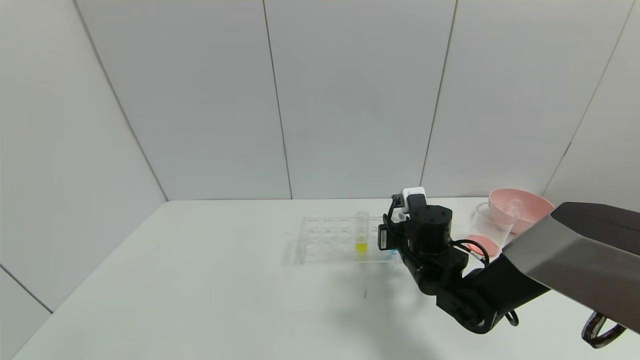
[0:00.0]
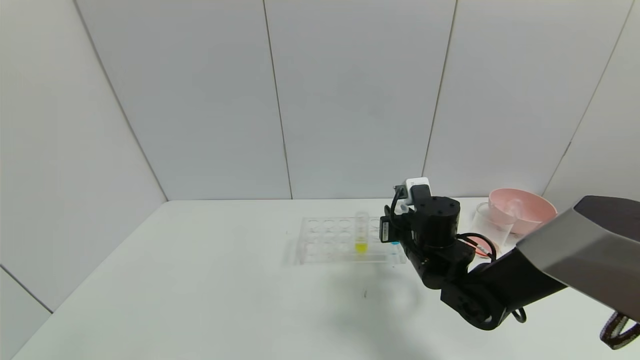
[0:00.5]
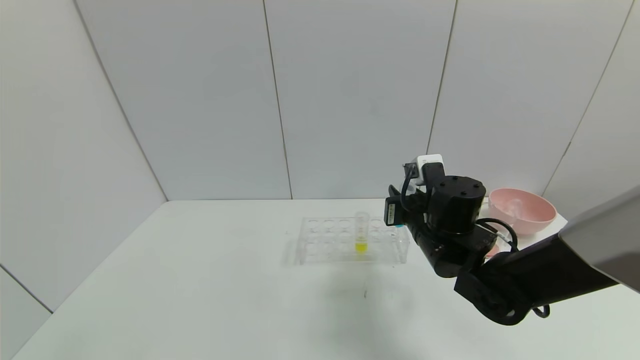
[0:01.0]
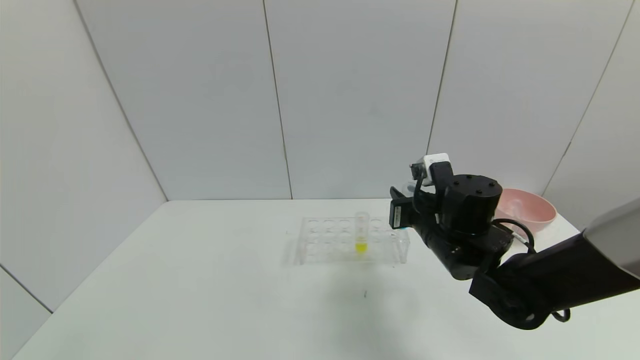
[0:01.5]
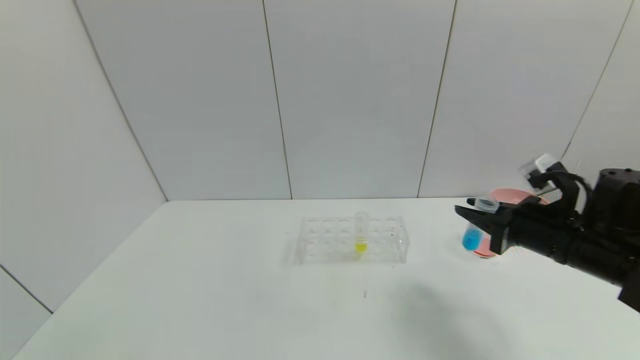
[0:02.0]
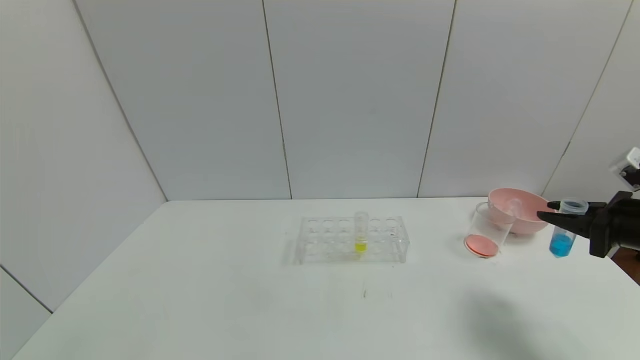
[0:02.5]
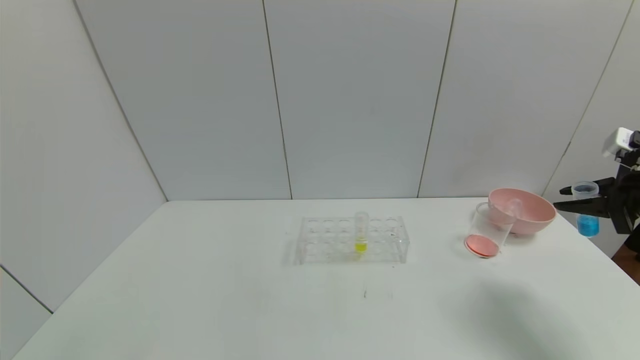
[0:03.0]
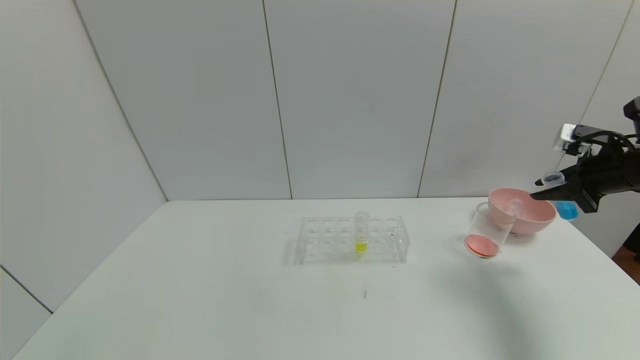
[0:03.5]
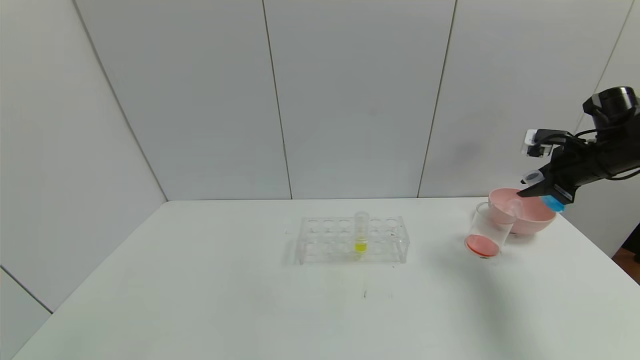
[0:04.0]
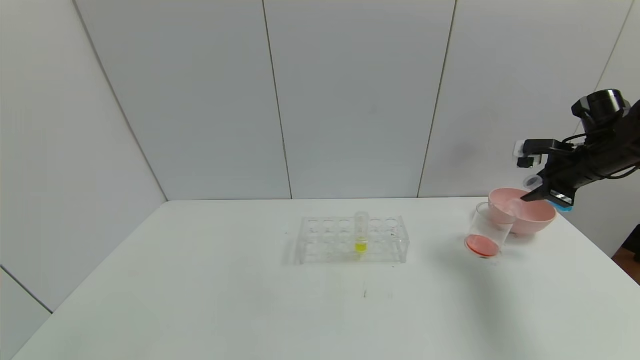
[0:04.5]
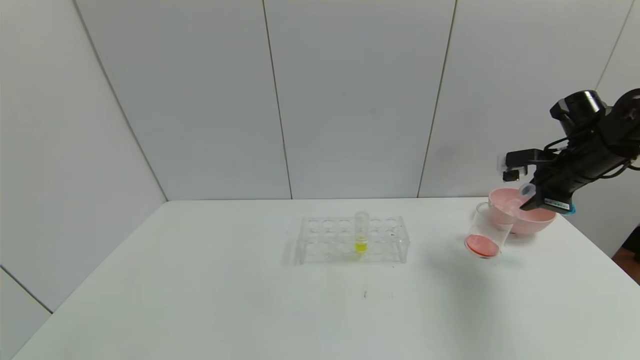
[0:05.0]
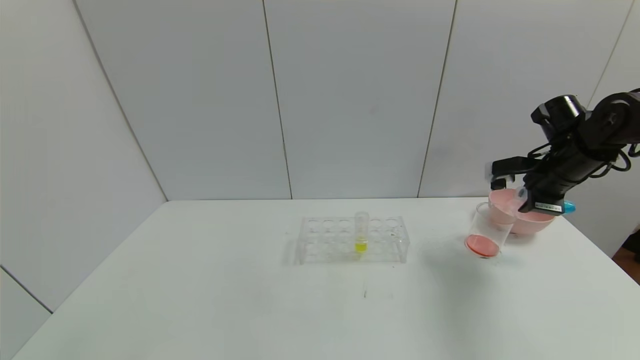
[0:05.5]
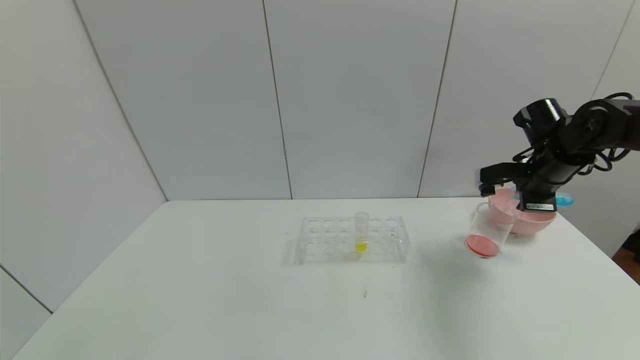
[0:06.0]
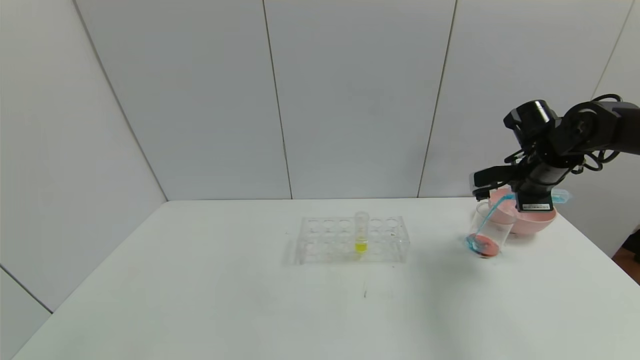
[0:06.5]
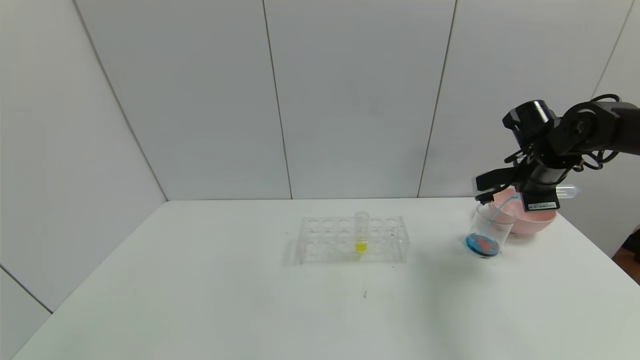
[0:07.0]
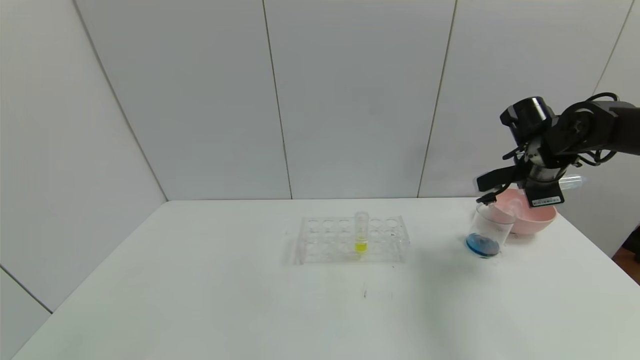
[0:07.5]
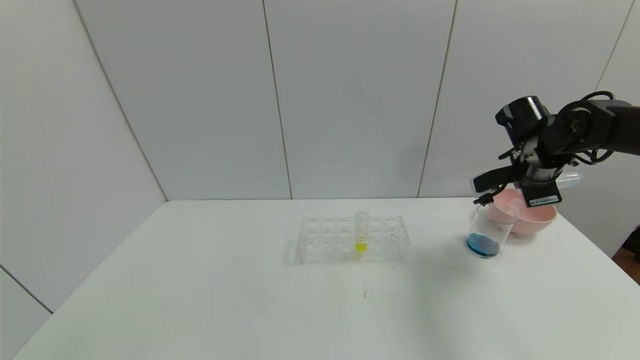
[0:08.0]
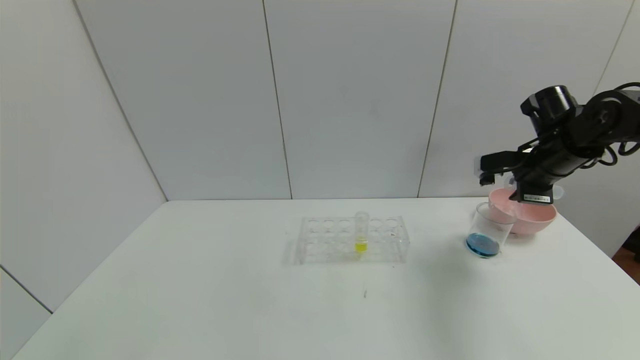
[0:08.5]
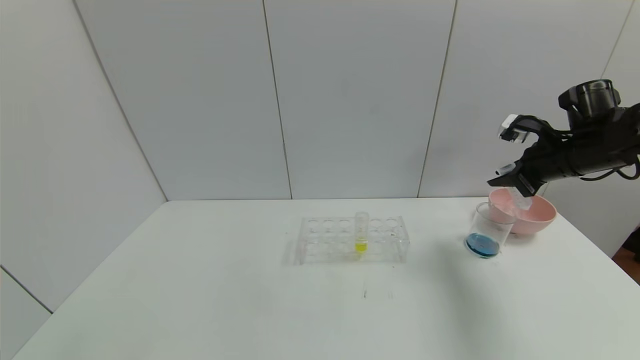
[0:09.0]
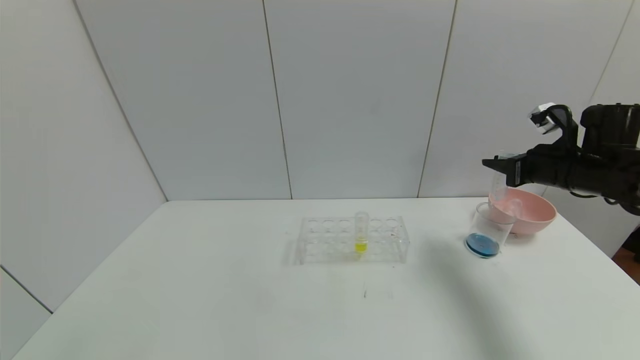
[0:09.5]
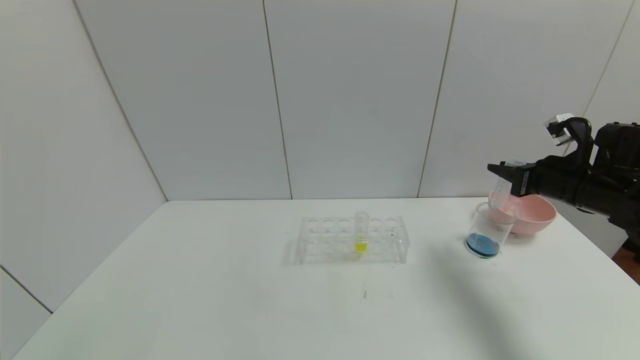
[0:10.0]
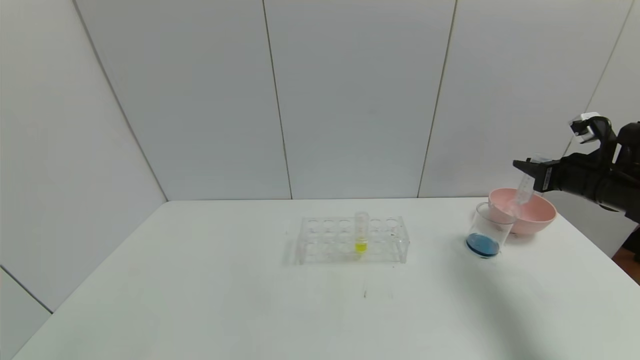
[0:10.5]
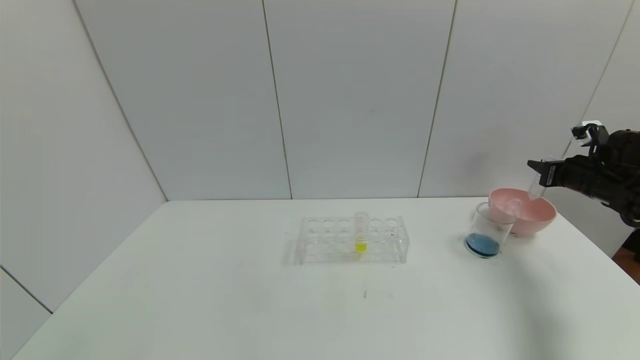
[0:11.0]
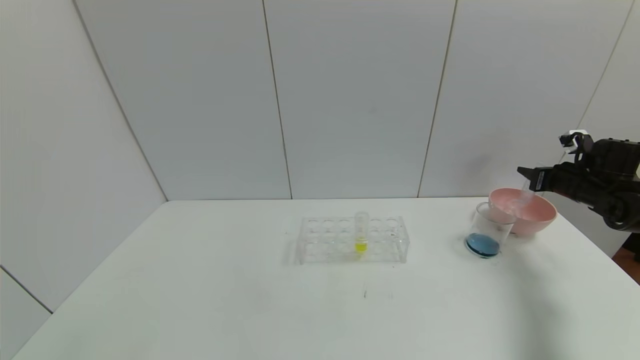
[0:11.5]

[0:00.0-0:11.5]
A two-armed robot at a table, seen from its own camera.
Task of the whole recording: pick up the test tube with red pigment and the test tube with blue pigment by grippers and pour them into the container.
Step, 0:00.5 to 0:07.5: Pour the blue reagent into the graduated cylinder with the right gripper.
0:00.0 to 0:02.0: The right gripper shifts roughly 20 cm to the right, upward and backward.
0:02.0 to 0:04.0: The right gripper goes approximately 20 cm to the right, forward and upward.
0:04.0 to 0:06.0: The right gripper goes approximately 10 cm to the left.
0:06.0 to 0:07.5: The grippers stay close to where they were, moving slightly.
0:07.5 to 0:09.5: The right gripper ends up approximately 5 cm from where it was.
0:09.5 to 0:11.5: The right gripper travels to the right, downward and forward by about 15 cm.

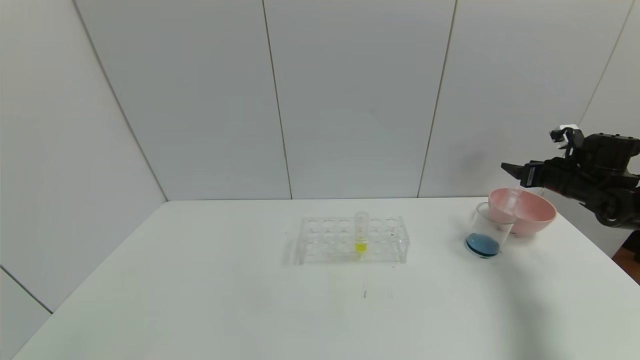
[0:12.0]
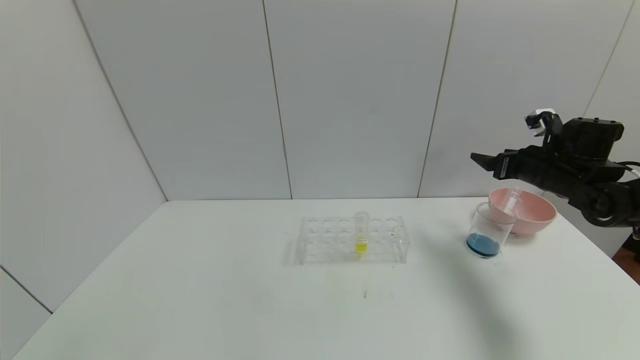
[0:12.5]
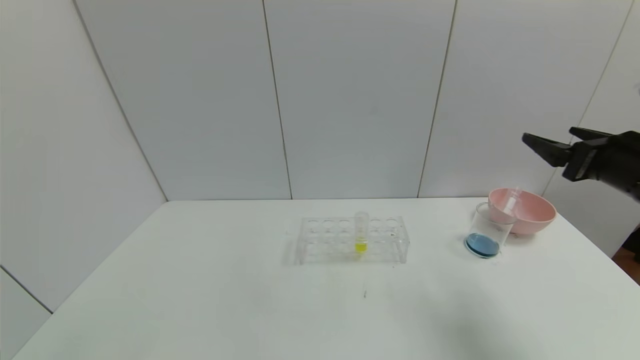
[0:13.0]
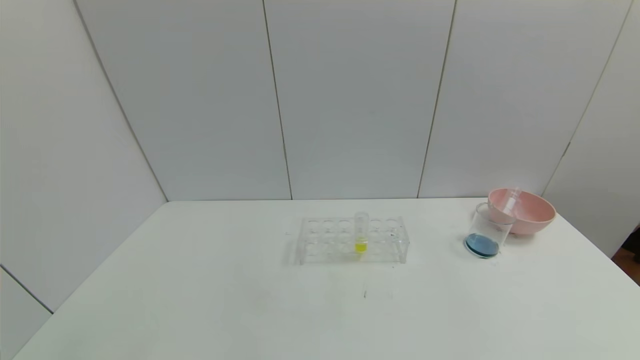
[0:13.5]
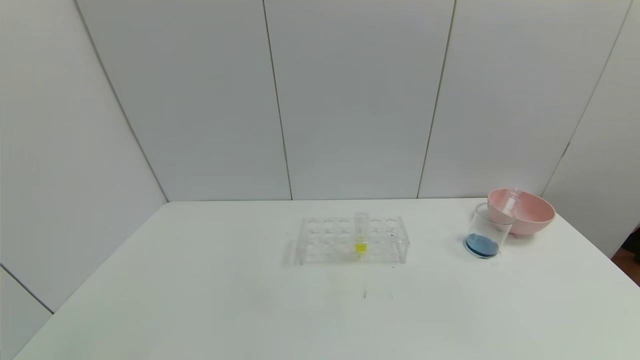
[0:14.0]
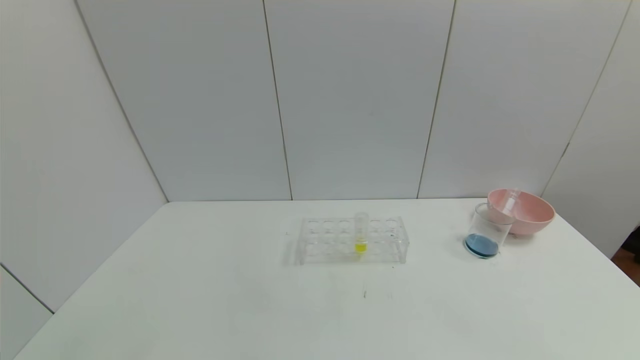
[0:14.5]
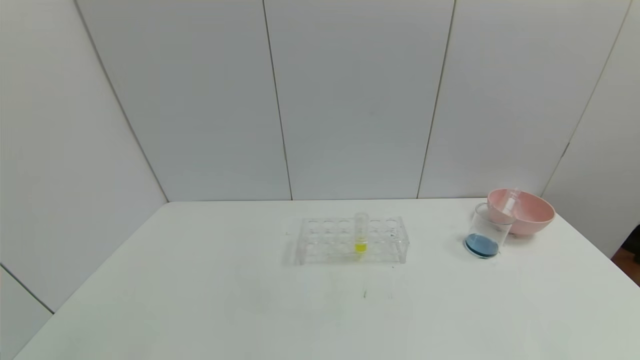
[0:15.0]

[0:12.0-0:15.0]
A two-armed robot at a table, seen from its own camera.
Task of the whole recording: pick up the test tube with red pigment and the test tube with blue pigment by grippers and pour them into the container.
0:12.0 to 0:13.5: The right gripper moves backward, about 35 cm.
